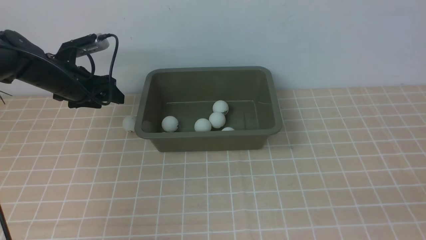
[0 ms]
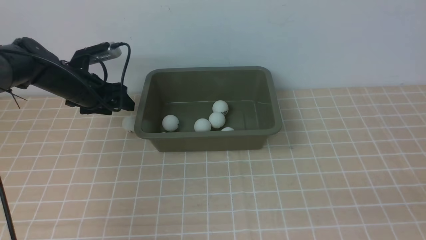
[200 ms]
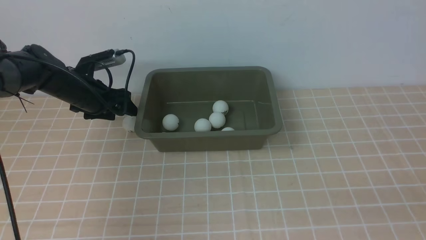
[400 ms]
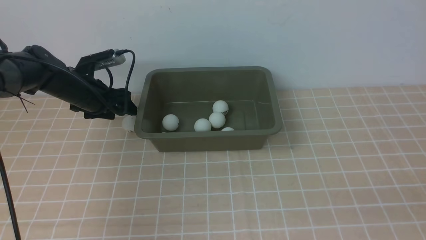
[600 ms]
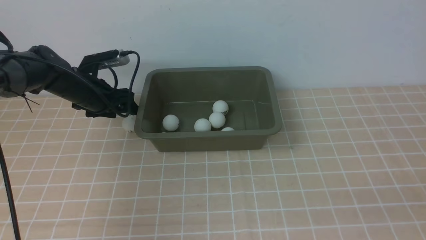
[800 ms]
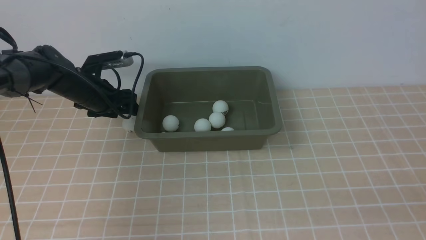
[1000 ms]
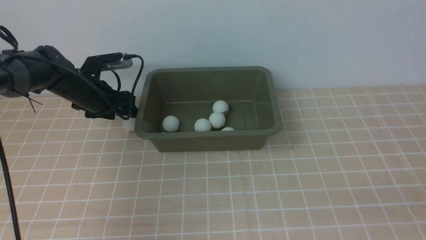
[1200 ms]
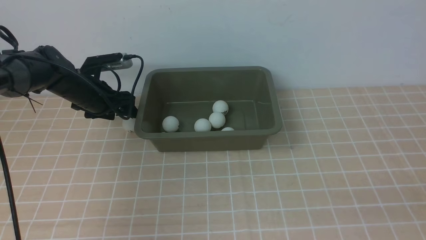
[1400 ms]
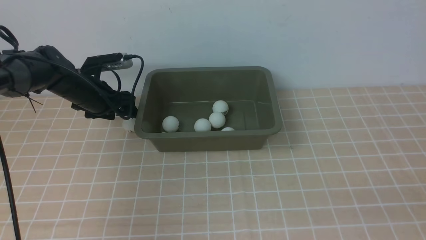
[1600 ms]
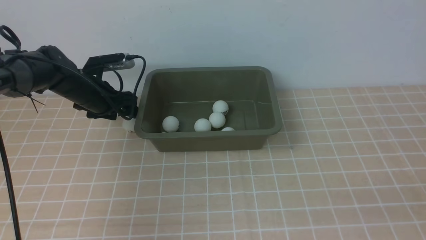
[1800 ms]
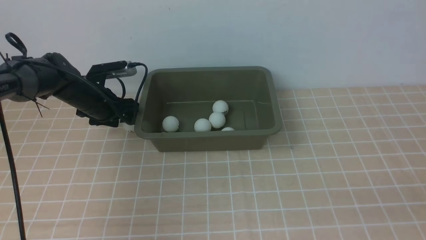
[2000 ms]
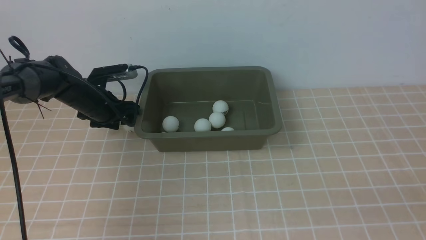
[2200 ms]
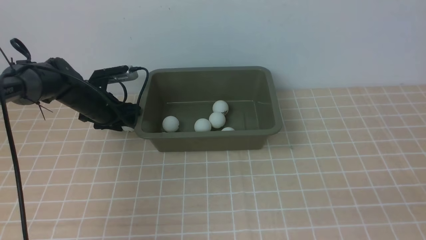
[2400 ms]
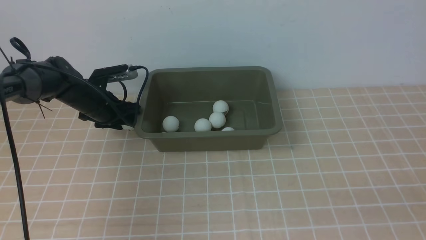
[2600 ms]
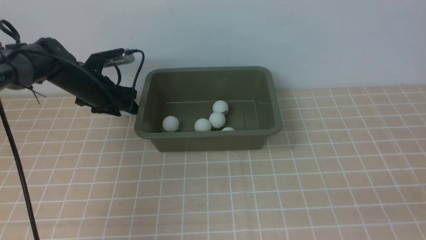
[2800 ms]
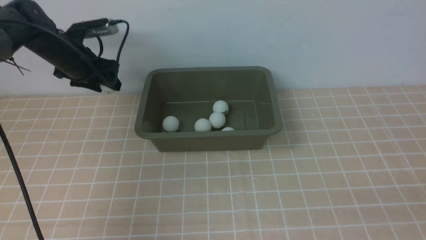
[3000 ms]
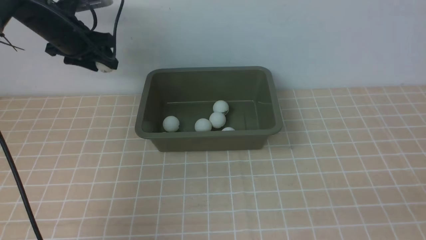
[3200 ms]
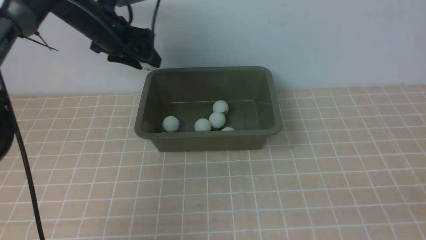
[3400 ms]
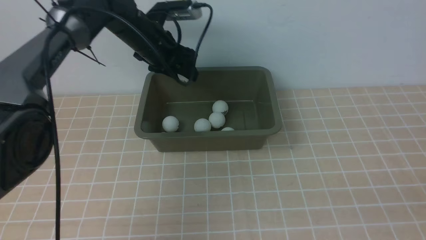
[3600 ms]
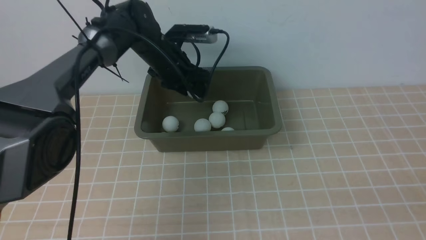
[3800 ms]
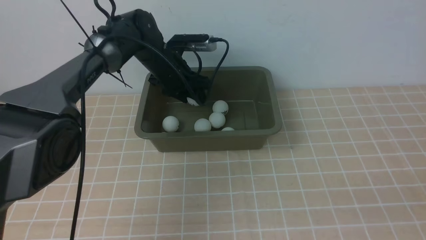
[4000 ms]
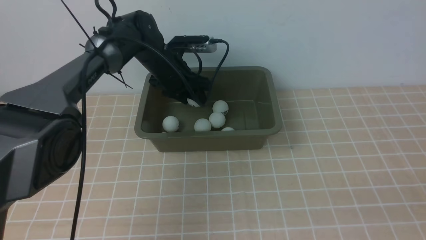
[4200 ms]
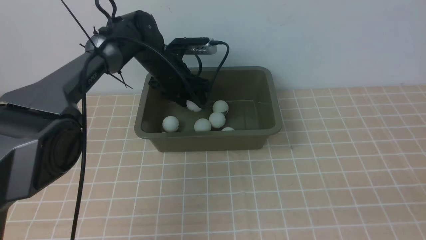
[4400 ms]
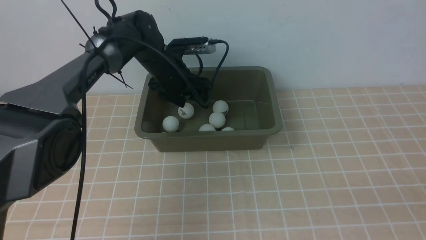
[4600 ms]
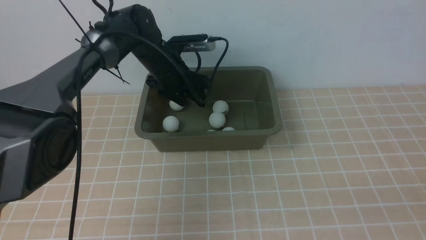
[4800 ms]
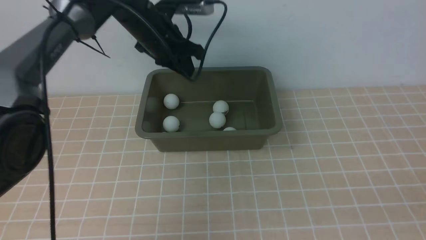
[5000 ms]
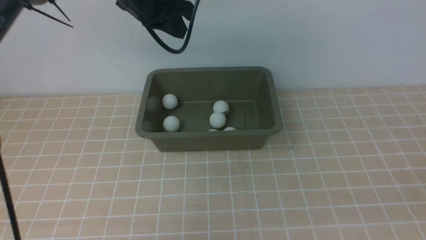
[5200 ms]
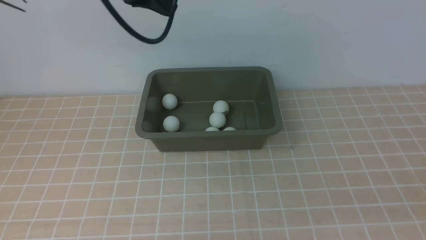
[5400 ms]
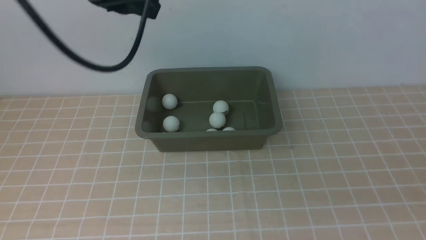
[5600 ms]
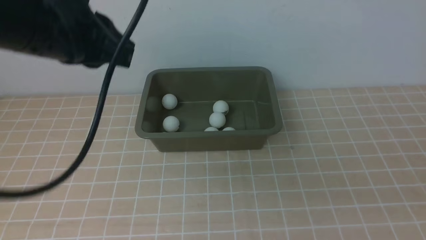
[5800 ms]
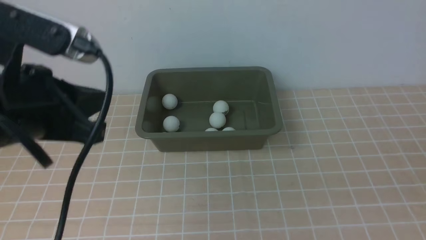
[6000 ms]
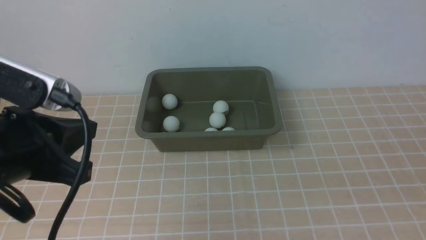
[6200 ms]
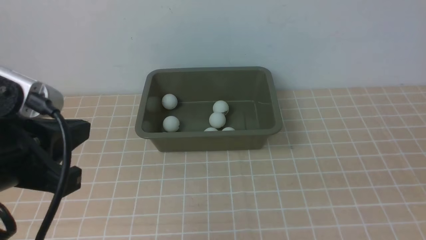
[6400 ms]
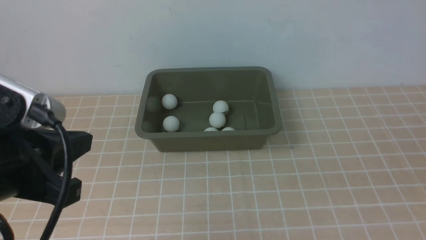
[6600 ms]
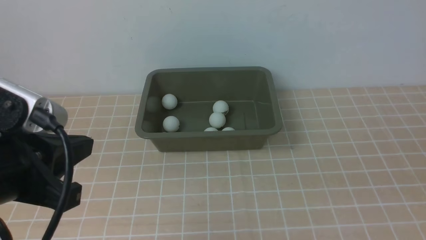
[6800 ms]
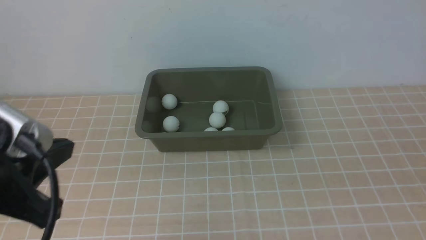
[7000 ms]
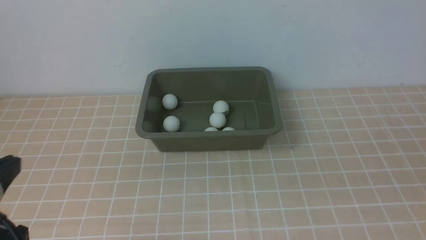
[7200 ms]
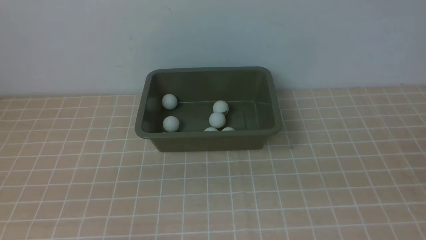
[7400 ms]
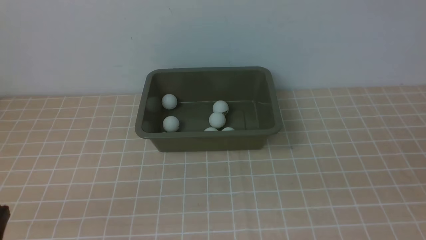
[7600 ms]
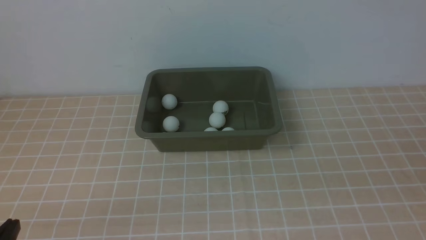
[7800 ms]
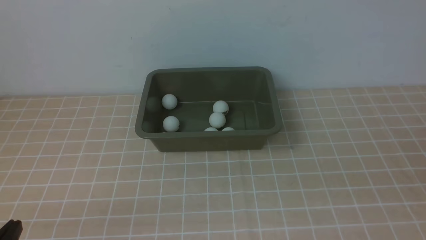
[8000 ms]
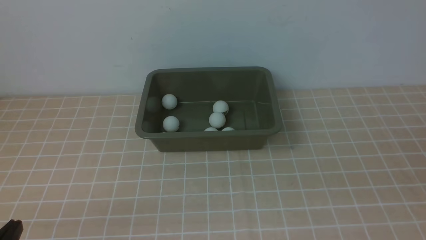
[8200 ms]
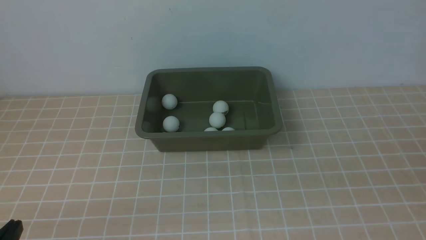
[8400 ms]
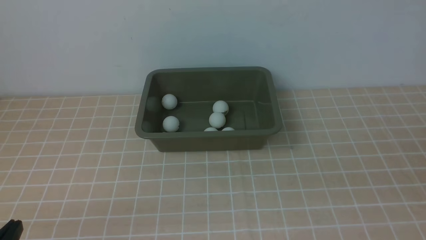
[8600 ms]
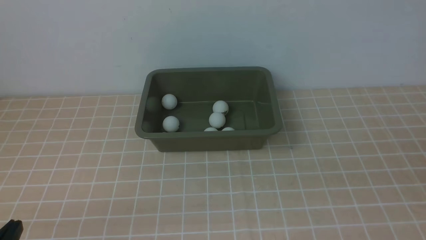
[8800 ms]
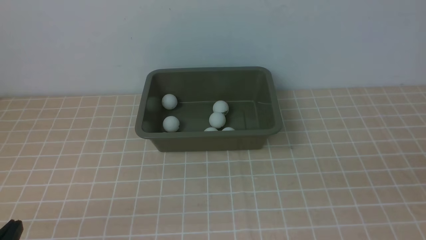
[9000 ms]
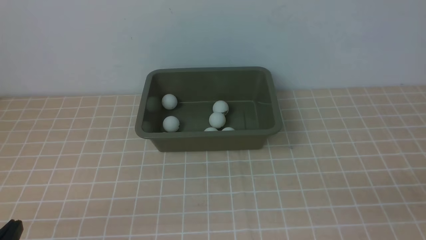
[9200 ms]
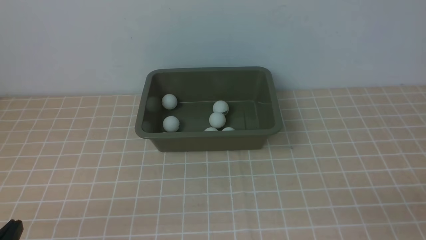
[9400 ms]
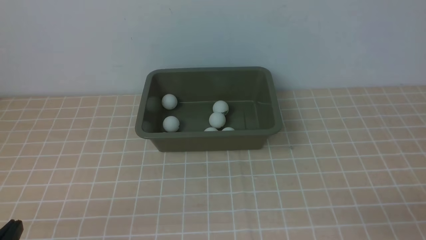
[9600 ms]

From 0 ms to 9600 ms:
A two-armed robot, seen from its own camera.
Step, from 0 ms to 3000 ms: use the left arm to clamp the table tennis ball closest to it.
Step, from 3200 ms to 4800 ms: use the left arm to put the table tennis ball into the box.
From 0 ms to 1600 ms: The grippers make only small movements.
From 1600 ms to 3200 ms: The left gripper shifts about 10 cm upward.
From 3200 ms to 4800 ms: The left gripper moves to the right, some 15 cm.
From 4800 ms to 6400 ms: The right gripper goes some 5 cm forward; the left gripper moves backward, roughly 35 cm, and closes up.
From 6400 ms to 8000 ms: The left gripper shifts roughly 20 cm downward and backward.

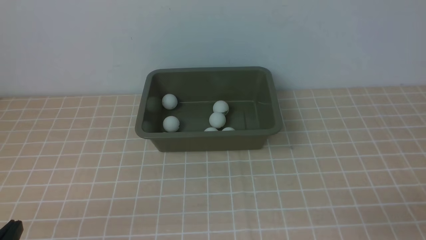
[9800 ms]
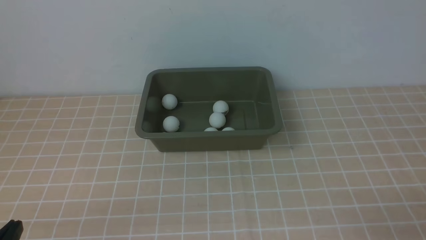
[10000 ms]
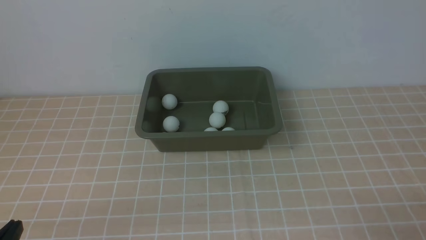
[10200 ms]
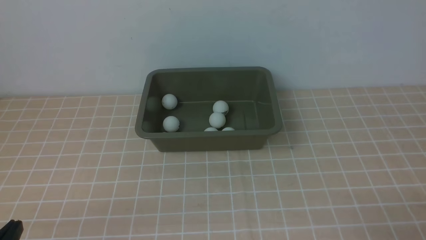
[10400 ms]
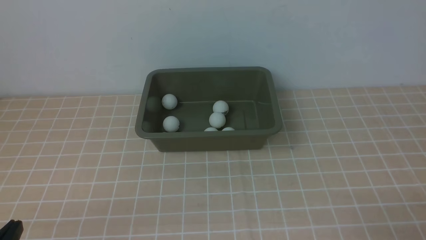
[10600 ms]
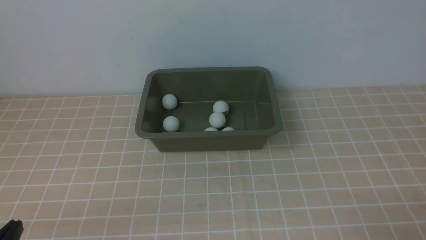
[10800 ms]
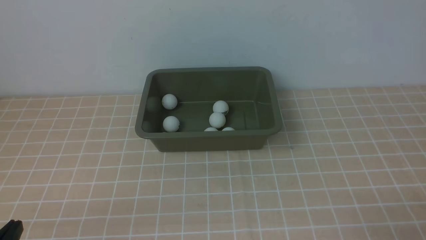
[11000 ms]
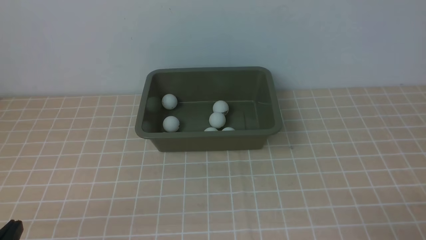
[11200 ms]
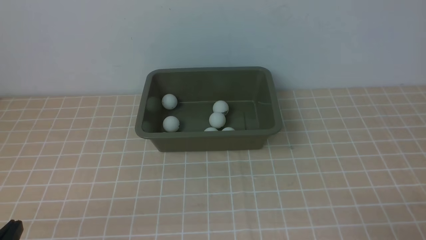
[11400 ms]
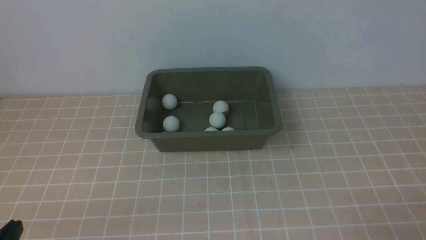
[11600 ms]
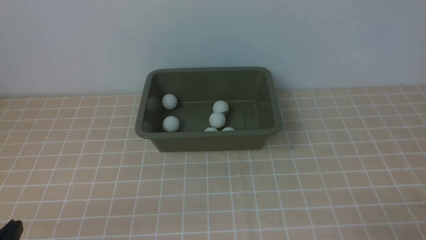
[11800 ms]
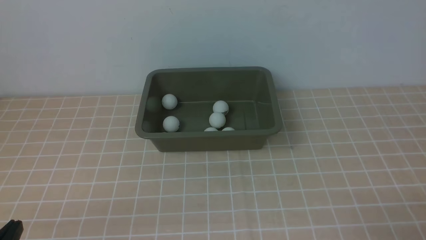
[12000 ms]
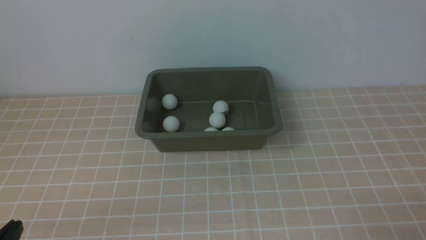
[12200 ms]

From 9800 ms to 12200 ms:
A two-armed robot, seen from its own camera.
From 11000 ms to 12200 ms: The two grippers keep their place.

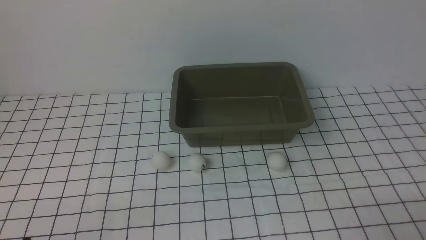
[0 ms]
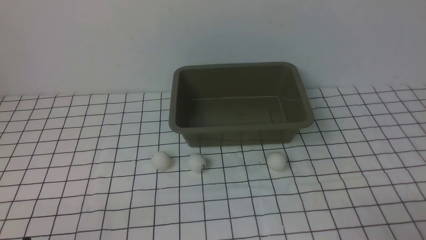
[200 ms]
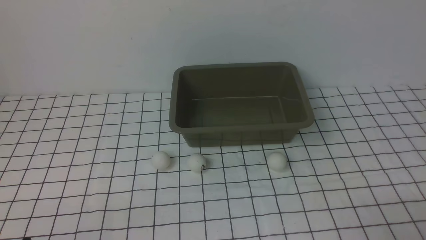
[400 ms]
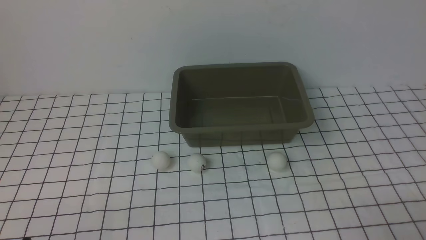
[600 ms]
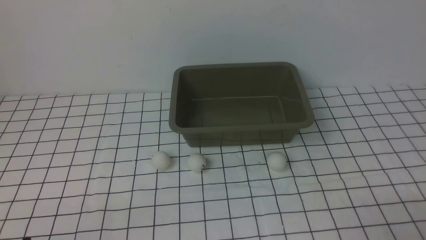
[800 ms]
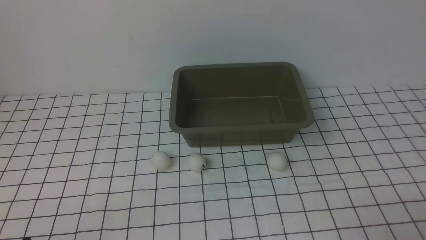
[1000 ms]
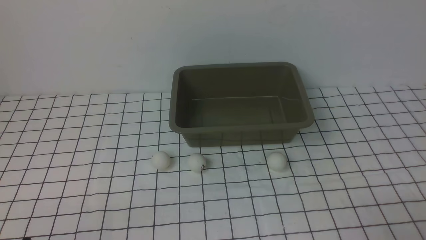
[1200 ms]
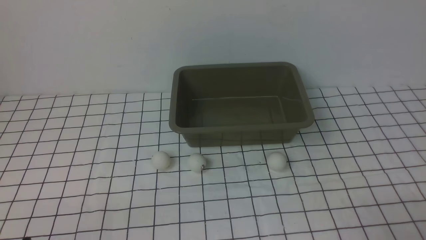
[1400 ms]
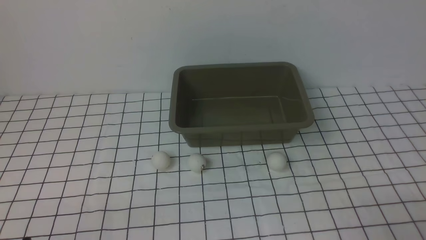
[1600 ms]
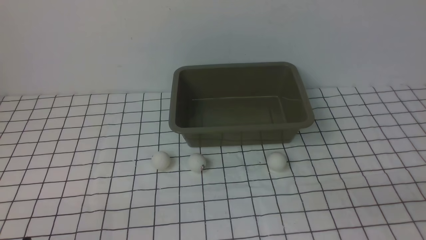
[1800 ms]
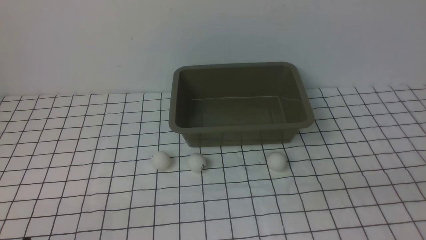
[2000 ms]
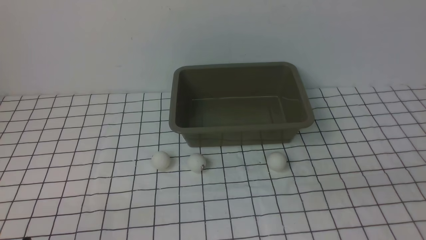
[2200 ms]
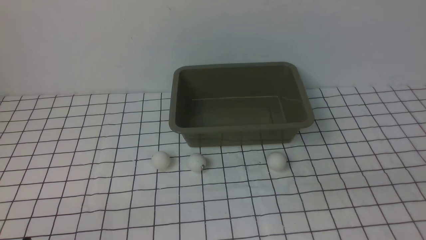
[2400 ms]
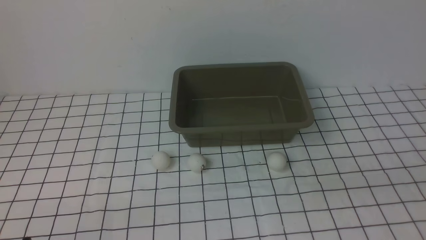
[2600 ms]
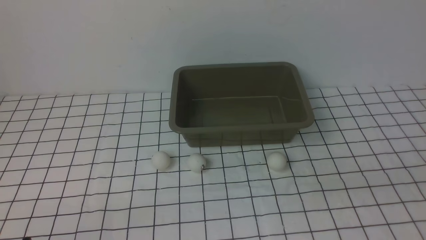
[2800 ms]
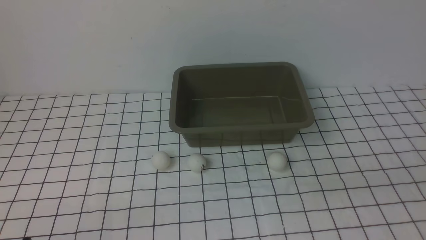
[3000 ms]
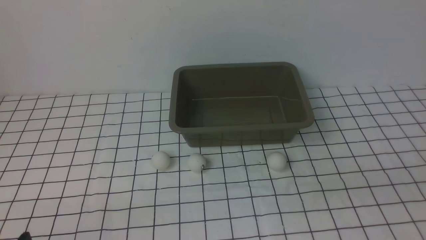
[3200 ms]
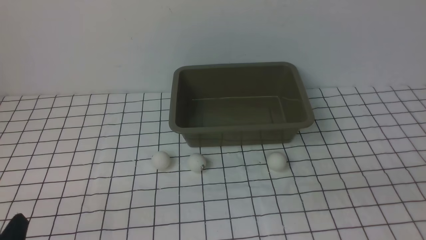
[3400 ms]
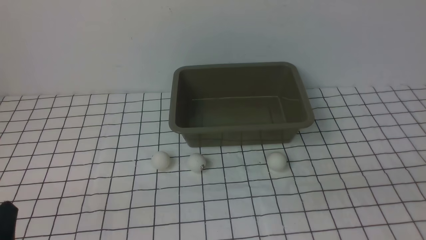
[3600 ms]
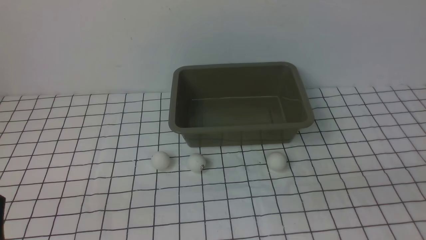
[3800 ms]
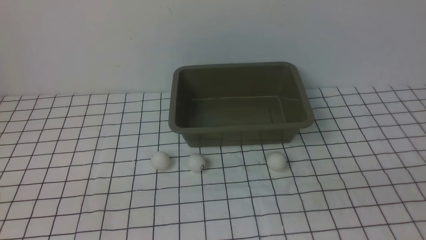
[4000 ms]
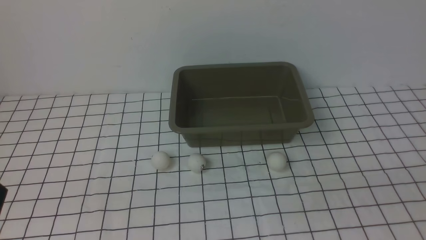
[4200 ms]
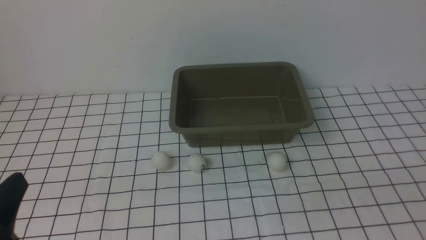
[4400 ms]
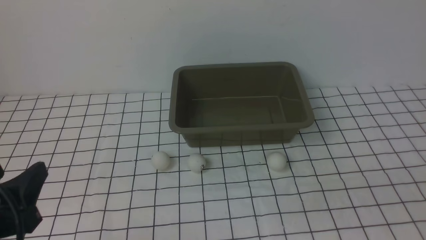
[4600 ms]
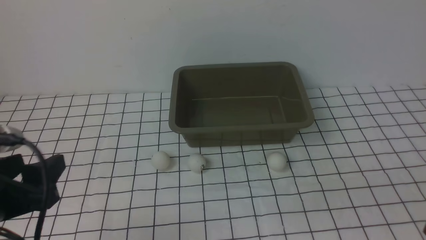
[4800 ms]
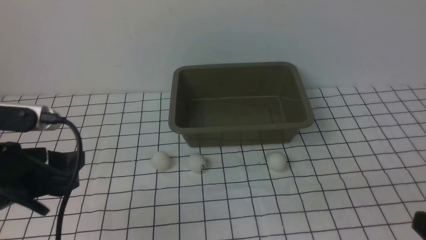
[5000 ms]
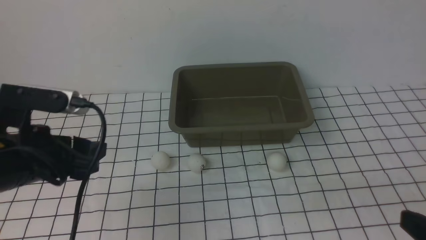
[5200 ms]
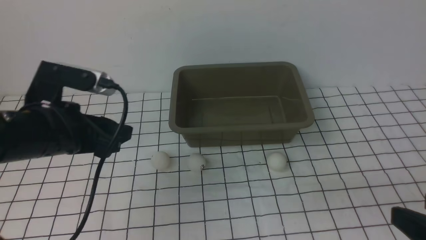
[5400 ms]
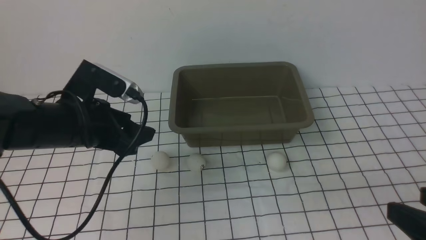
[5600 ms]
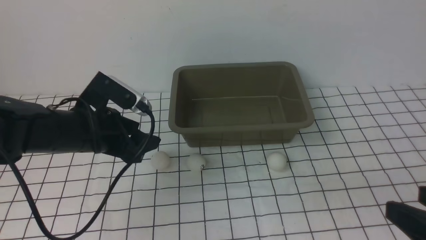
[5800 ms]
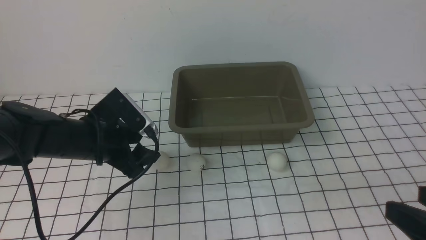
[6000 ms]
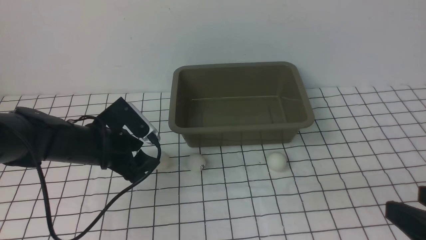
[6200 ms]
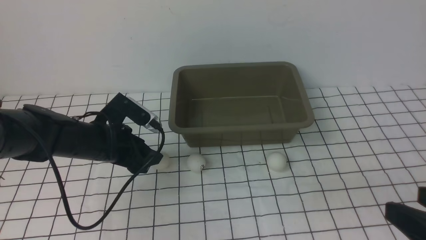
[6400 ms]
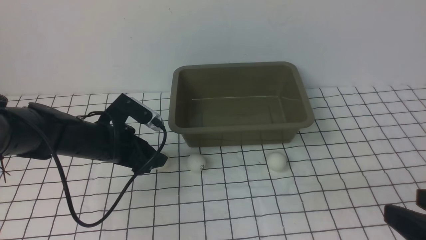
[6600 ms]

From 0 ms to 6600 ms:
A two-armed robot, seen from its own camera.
From 3200 ms to 5000 ms: The left gripper travels forward and upward by about 20 cm. The right gripper is displaced forward by roughly 5 cm.
From 5000 ms to 6600 ms: The left gripper goes about 20 cm forward and downward.
